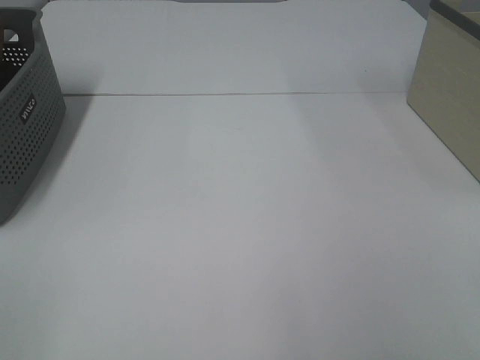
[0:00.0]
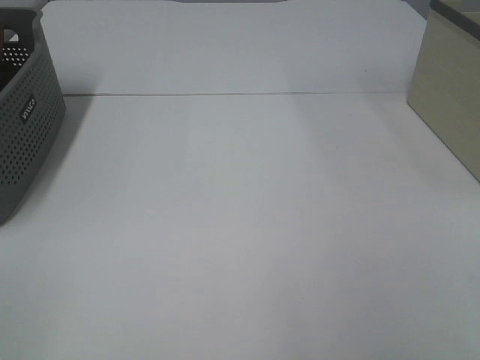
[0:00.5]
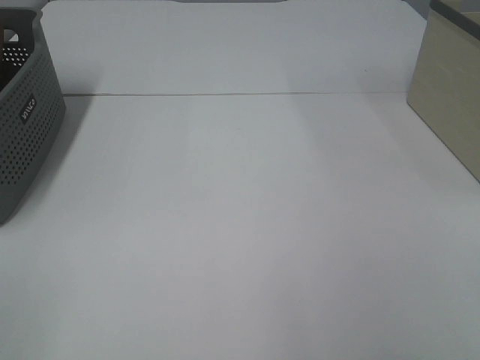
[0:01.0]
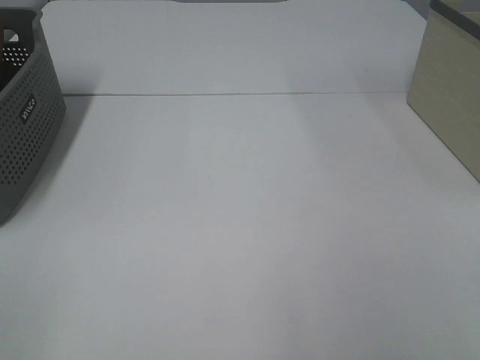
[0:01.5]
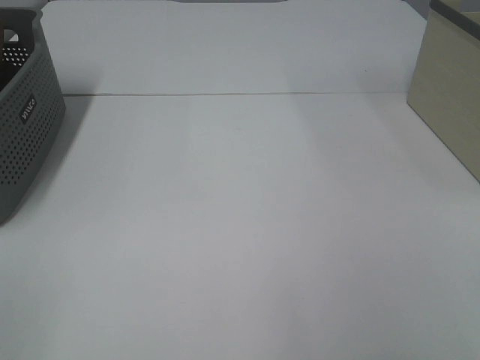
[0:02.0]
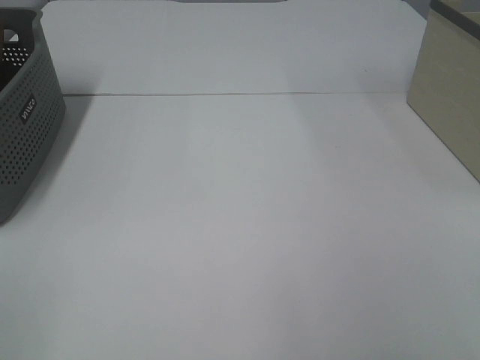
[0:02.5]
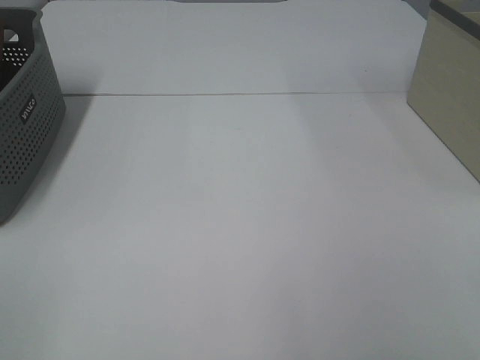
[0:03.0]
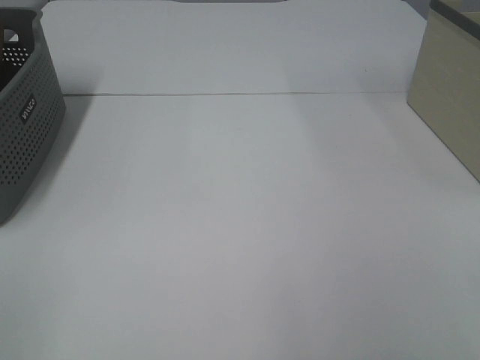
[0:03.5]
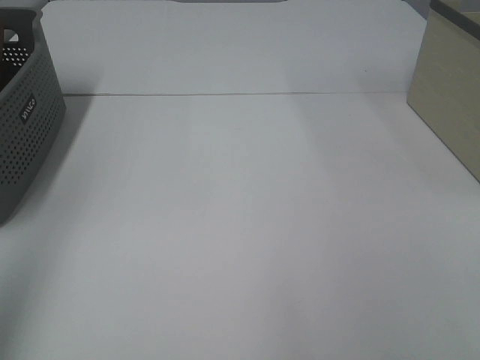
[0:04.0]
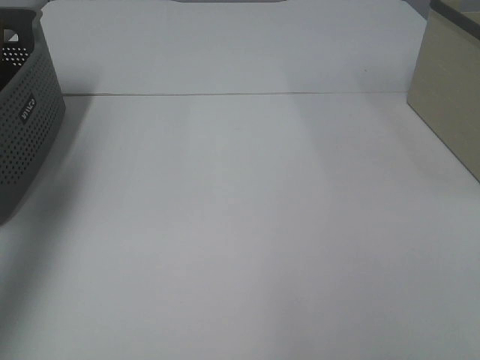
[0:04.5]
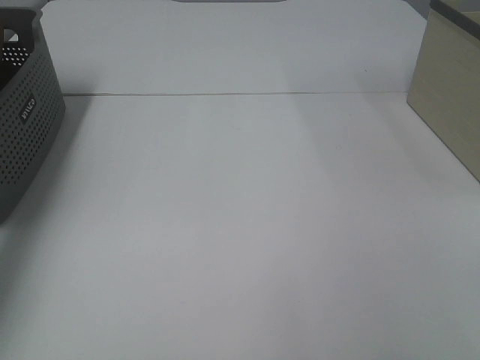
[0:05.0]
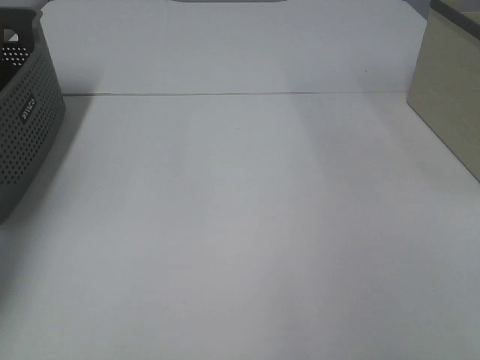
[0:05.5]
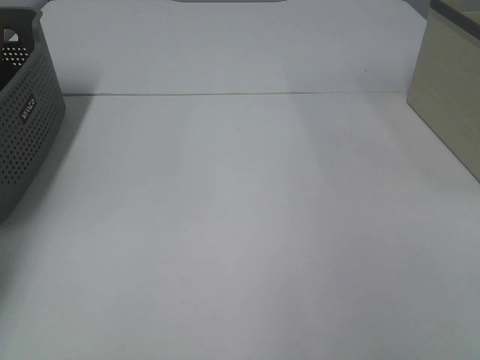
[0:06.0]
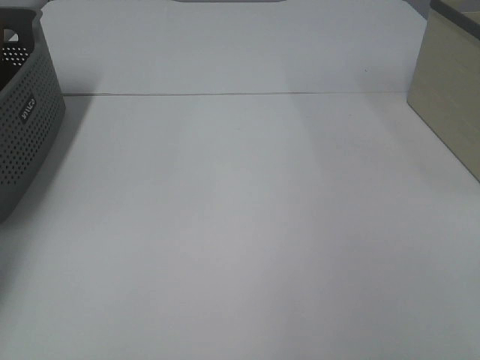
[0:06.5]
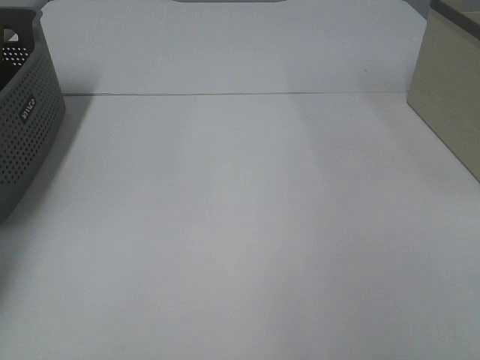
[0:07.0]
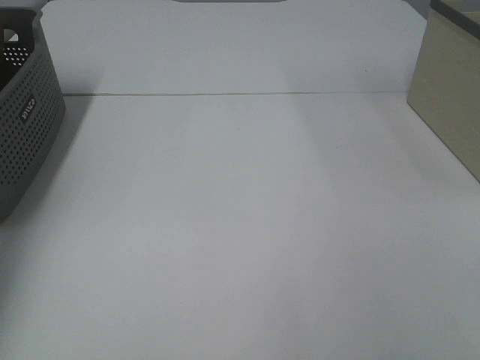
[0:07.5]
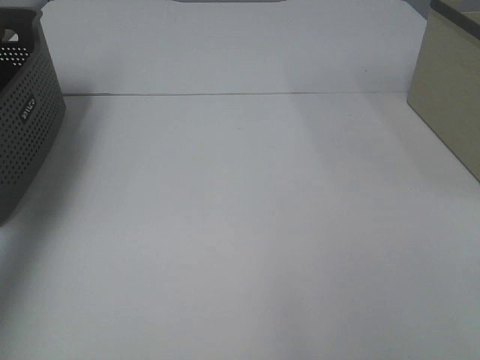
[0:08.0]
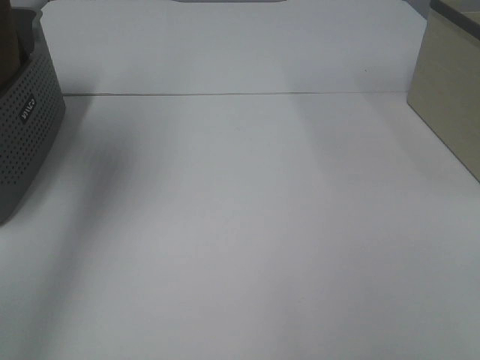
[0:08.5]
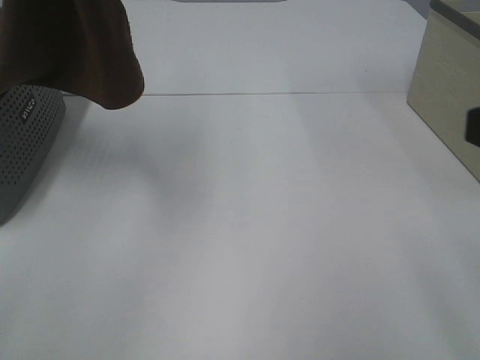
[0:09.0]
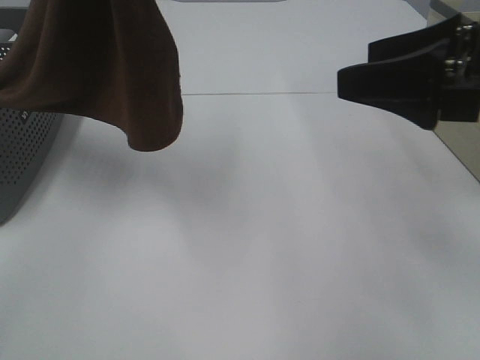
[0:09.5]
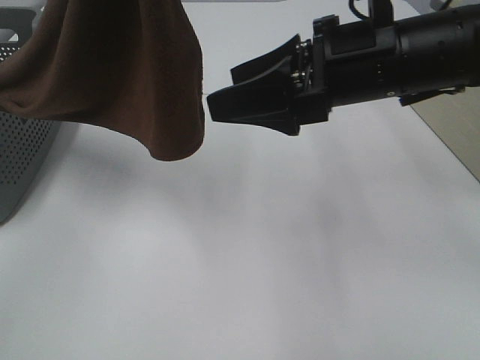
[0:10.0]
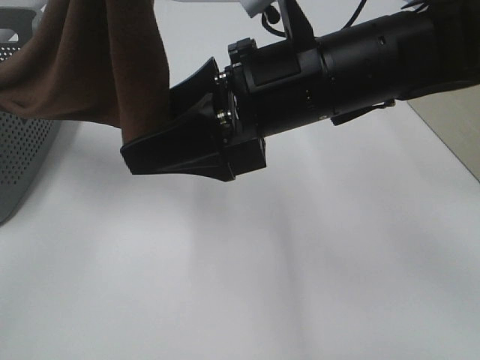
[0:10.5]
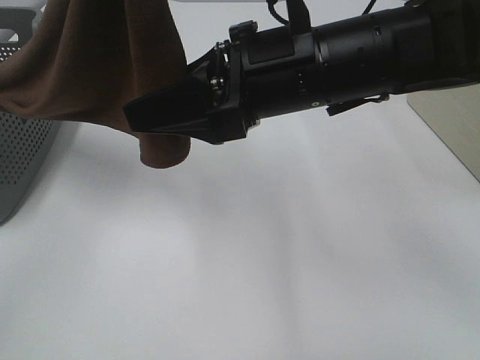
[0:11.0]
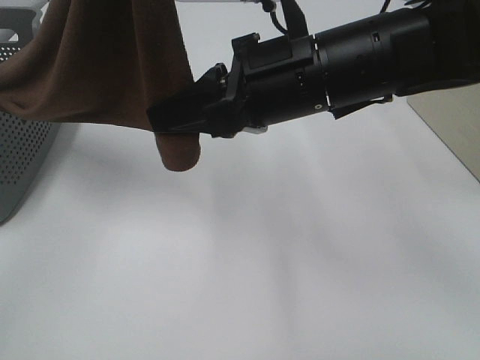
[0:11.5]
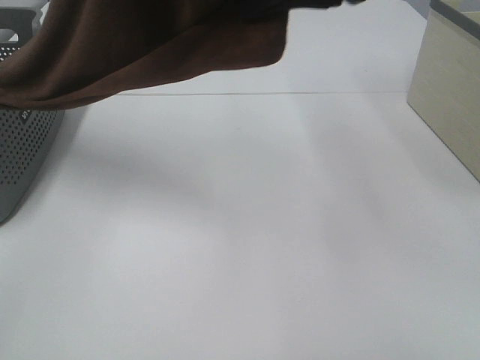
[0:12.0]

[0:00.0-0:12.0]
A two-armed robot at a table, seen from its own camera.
Task of the whole recording: Remove the towel and place it.
0.0 to 2.0 s: Neither gripper changes place.
2.0 to 4.0 s: The left gripper heads upward and forward, covering some 15 cm.
4.0 to 6.0 s: The left gripper goes approximately 40 cm forward and downward.
6.0 to 8.0 s: The left gripper shifts approximately 20 cm upward, and closes.
8.0 to 10.0 s: The left gripper travels to the right and backward by about 30 cm. Meanwhile the right gripper travels forward and to the left by some 30 cm.
10.0 to 12.0 s: The right gripper moves upward, some 10 cm, and closes its fingers.

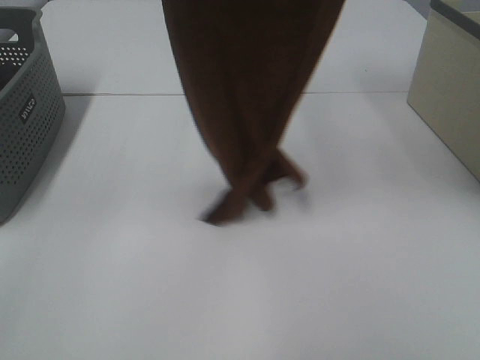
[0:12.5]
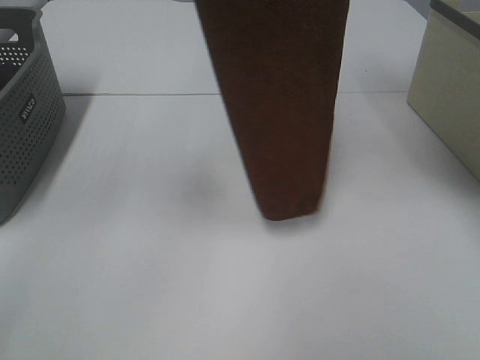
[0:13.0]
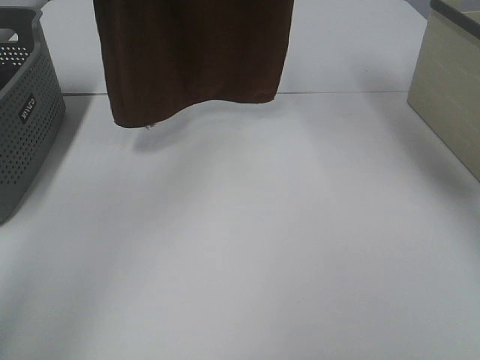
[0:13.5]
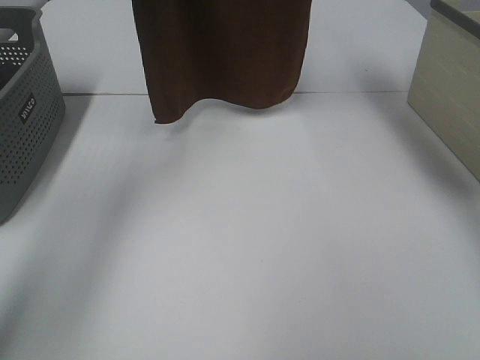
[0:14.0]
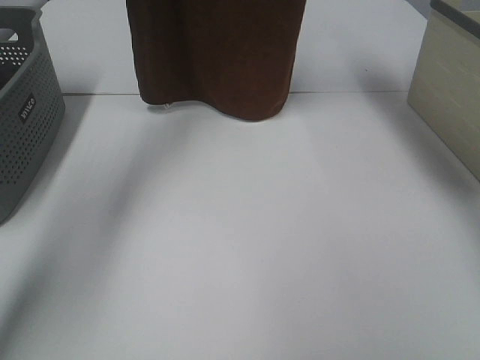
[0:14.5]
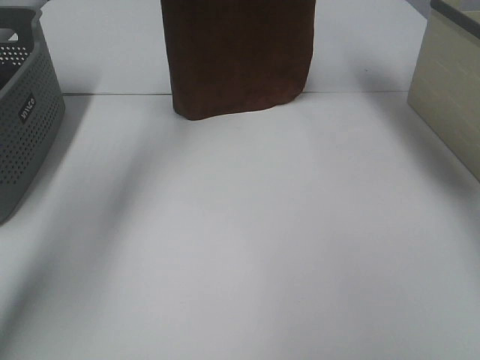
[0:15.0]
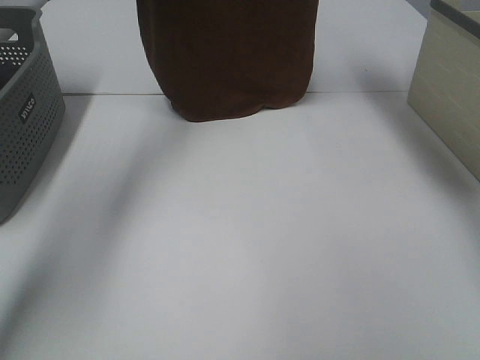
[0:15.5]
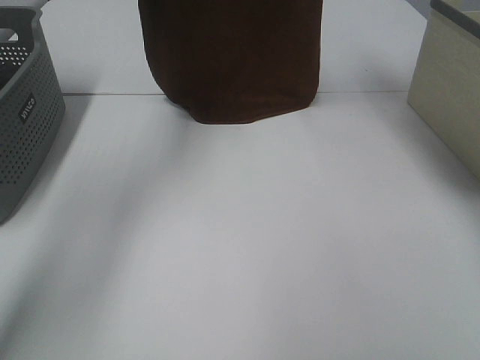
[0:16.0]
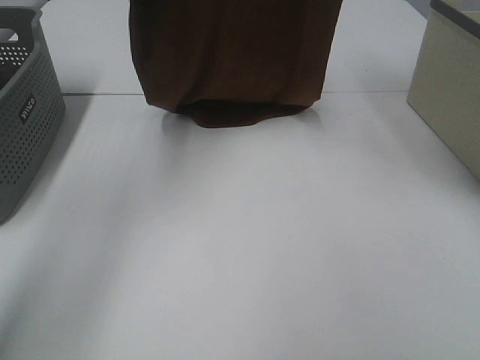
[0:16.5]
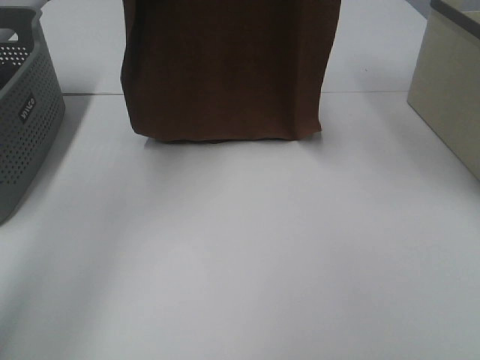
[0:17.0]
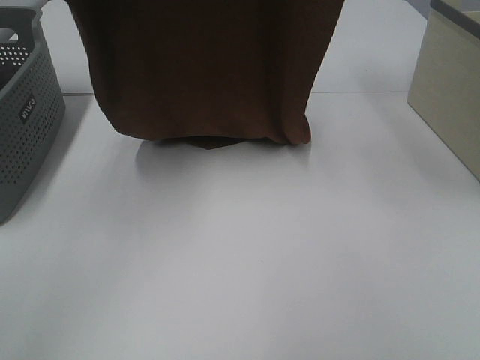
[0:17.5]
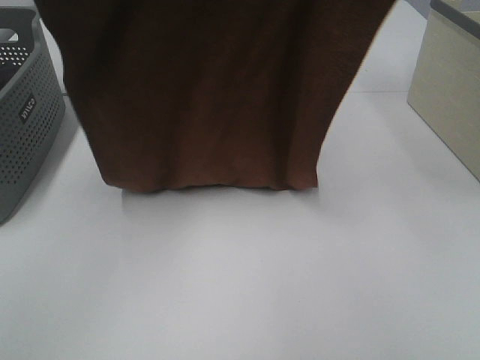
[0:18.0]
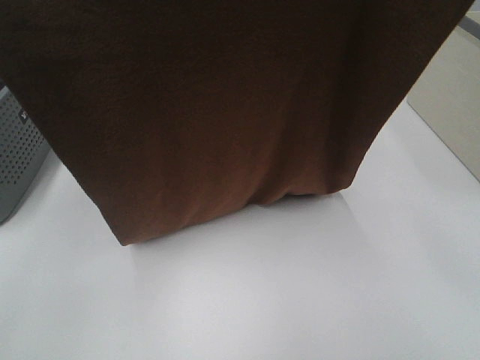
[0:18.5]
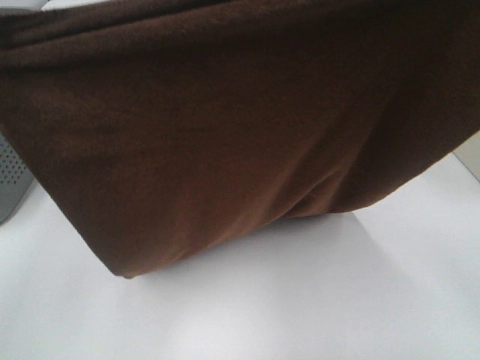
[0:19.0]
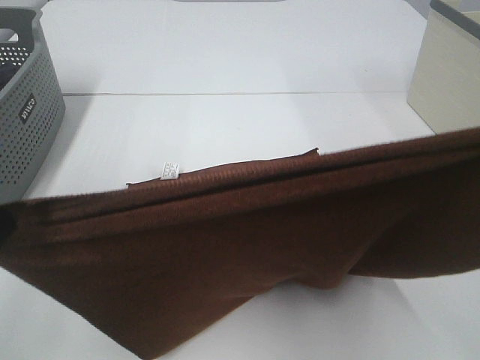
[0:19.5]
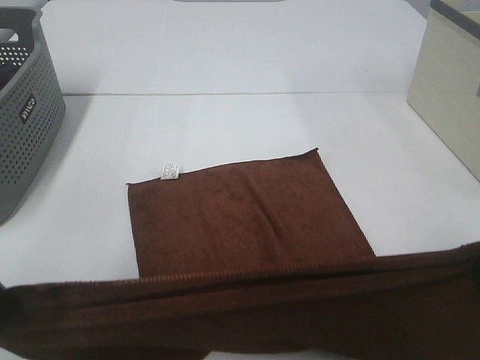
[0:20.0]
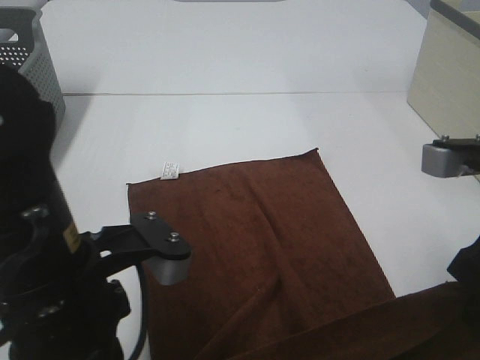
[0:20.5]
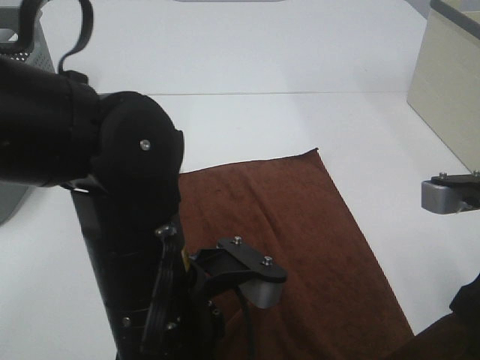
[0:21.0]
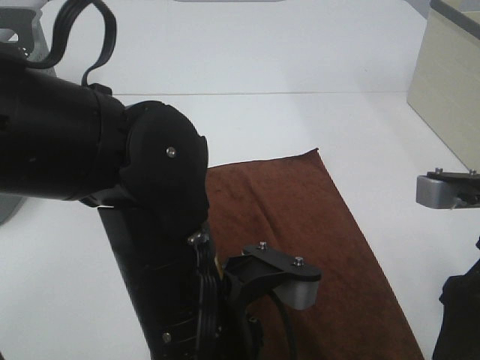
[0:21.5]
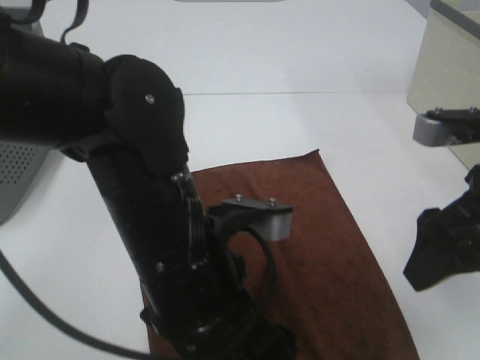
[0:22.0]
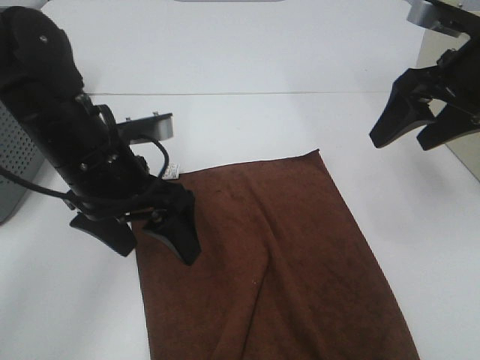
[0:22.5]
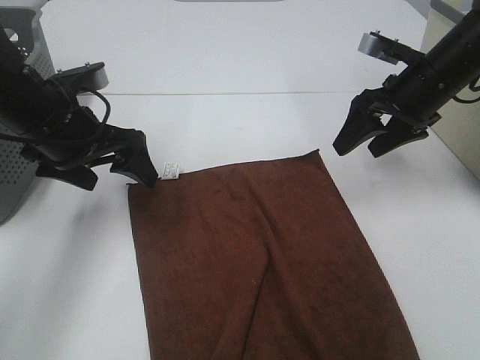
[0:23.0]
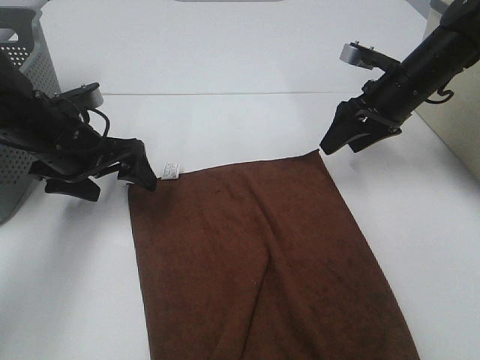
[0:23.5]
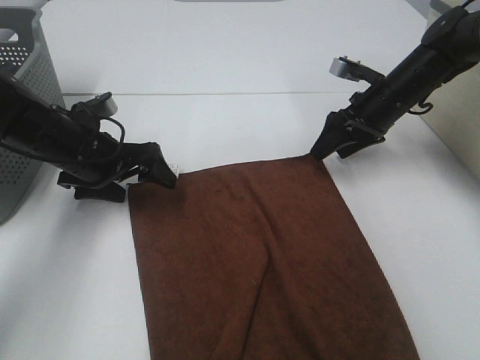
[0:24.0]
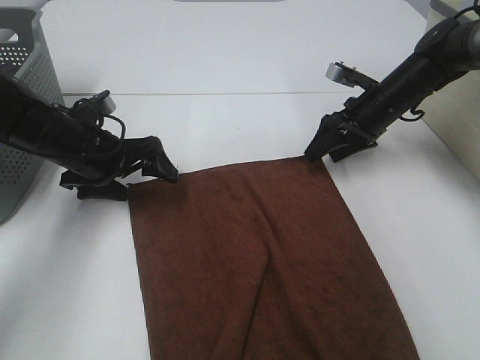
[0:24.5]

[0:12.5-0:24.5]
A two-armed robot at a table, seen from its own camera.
Task of the whole recording: Remove the towel and place it.
Step, 13.0 to 17.0 s: Left hand: spread the brown towel flat on the table.
Step, 13.0 to 17.0 s: Right hand: spread the brown towel flat on the table.
12.5 to 14.5 s: The left gripper shifts some 25 cm forward and downward; the right gripper is displaced forward by some 20 cm.
14.5 to 16.5 s: Both grippers travel together backward, approximately 10 cm.
16.5 to 18.5 s: Both grippers move backward, about 20 cm.
18.5 to 20.5 s: The left gripper shifts approximately 30 cm downward and to the right. Meanwhile the right gripper moves downward, some 25 cm.
20.5 to 22.5 s: The grippers both shift forward by some 15 cm. The right gripper opens; the left gripper opens up.
22.5 to 24.5 s: The right gripper is displaced downward and forward by roughly 20 cm. Meanwhile the left gripper is displaced forward, downward and to the left by approximately 15 cm.

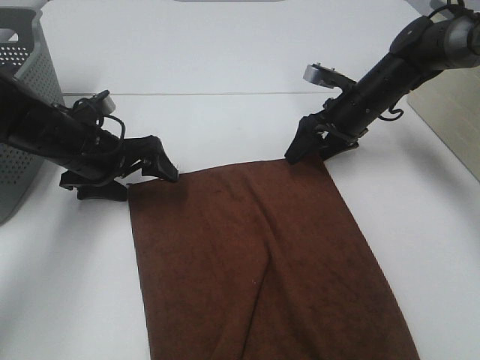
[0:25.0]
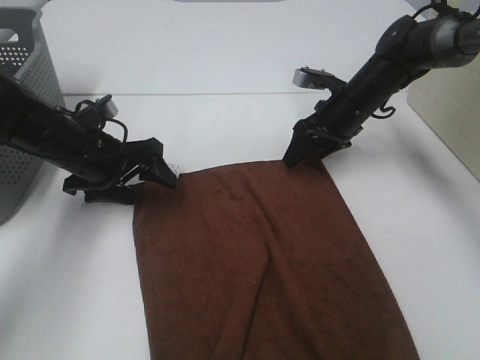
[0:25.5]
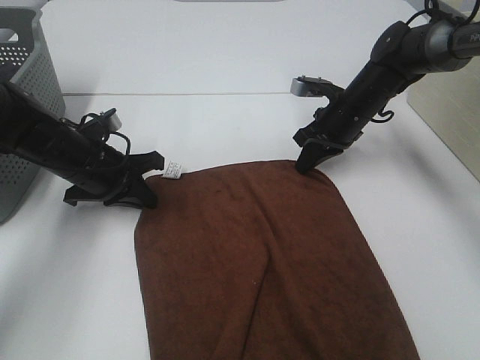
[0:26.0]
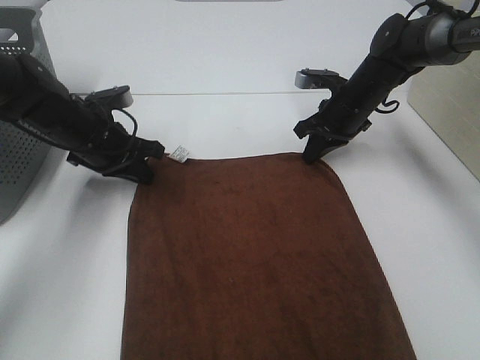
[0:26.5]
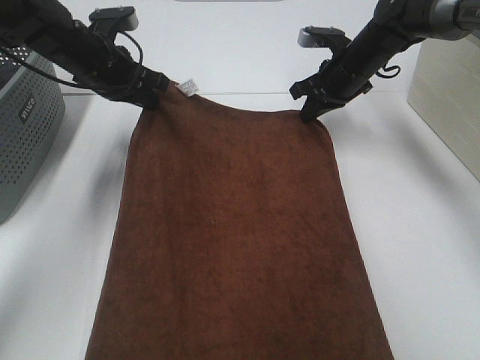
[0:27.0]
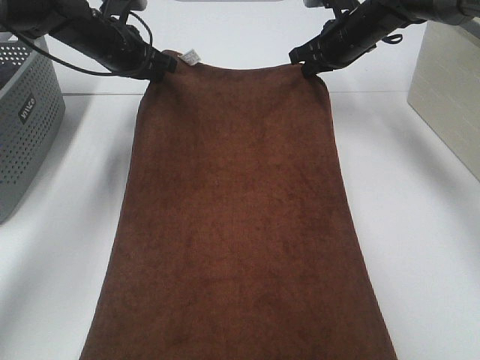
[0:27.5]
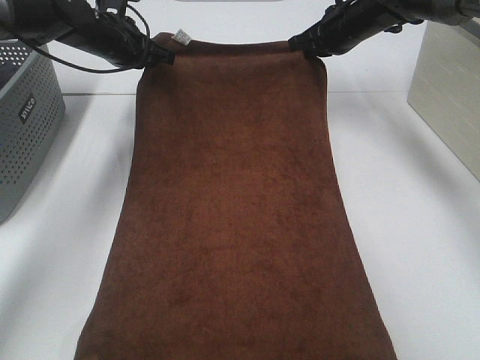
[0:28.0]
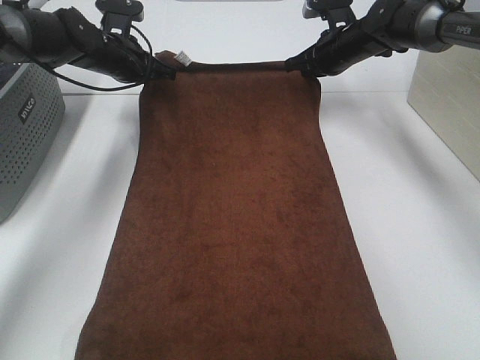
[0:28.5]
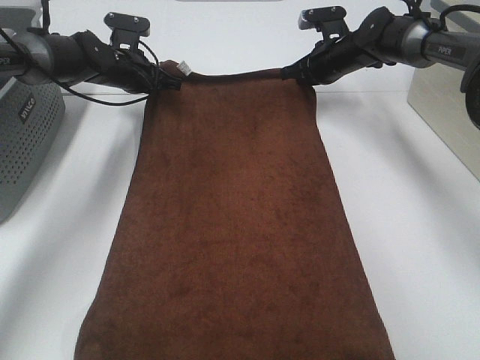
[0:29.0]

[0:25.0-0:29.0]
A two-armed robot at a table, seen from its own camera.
Task of the whole recording: Remove the towel and place it.
25.0 to 27.0 s: The right gripper moves approximately 5 cm, and closes its fingers. Meanwhile the left gripper heads forward and upward, covering roughly 15 cm, and closes up.
27.0 to 29.0 s: The left gripper travels forward and downward by approximately 10 cm. The right gripper heads forward, covering about 5 cm.
